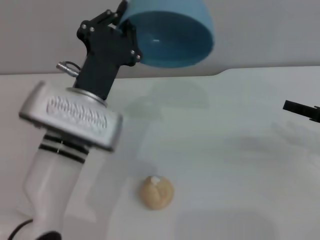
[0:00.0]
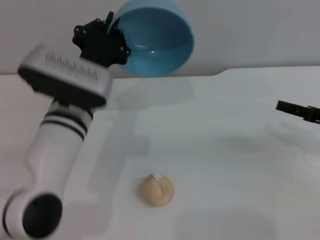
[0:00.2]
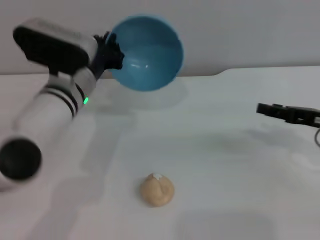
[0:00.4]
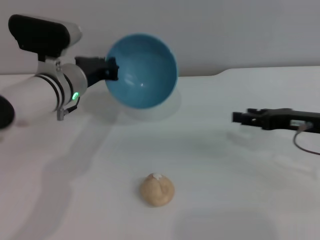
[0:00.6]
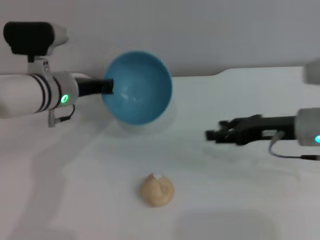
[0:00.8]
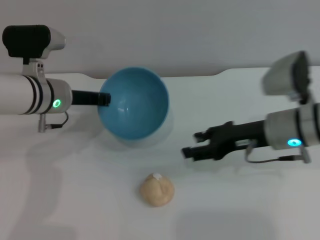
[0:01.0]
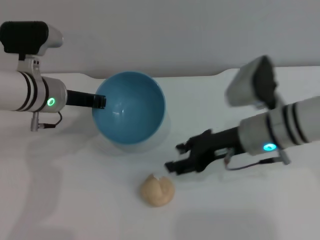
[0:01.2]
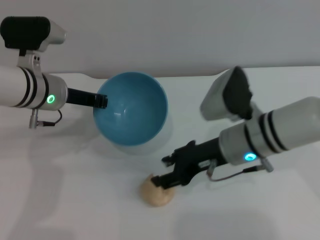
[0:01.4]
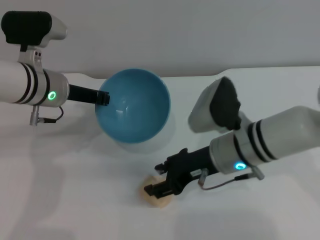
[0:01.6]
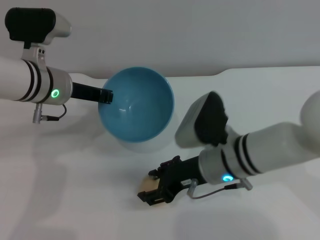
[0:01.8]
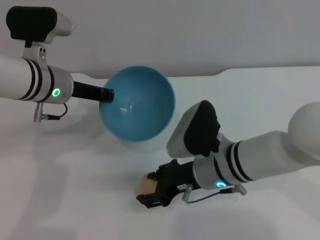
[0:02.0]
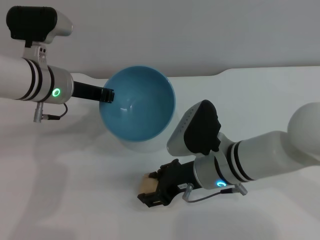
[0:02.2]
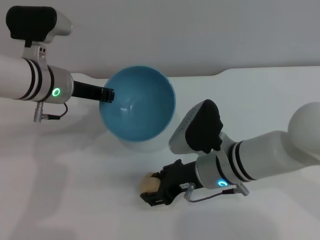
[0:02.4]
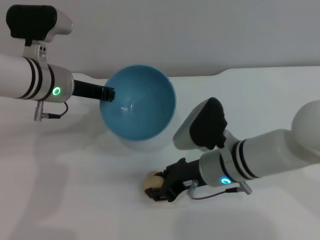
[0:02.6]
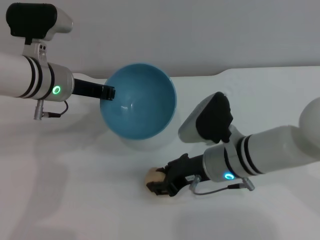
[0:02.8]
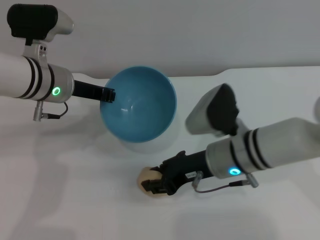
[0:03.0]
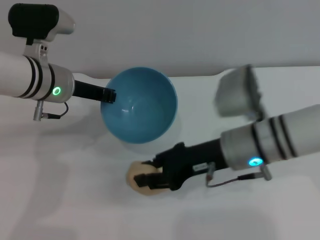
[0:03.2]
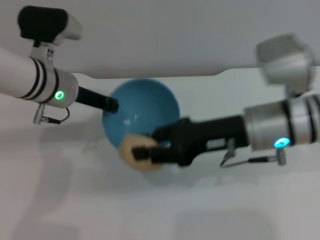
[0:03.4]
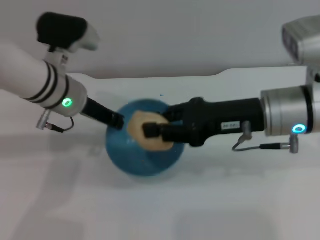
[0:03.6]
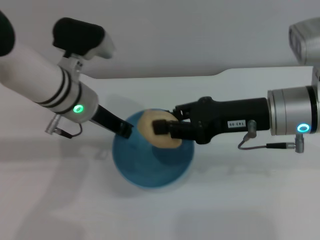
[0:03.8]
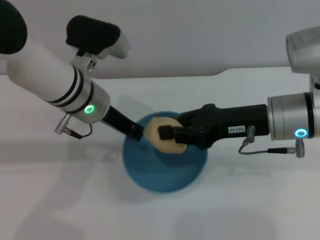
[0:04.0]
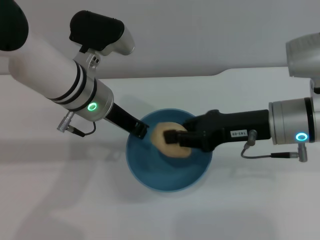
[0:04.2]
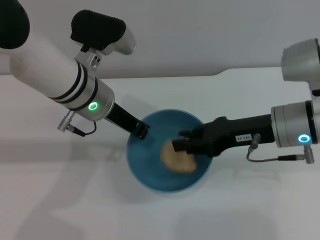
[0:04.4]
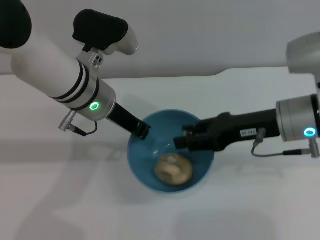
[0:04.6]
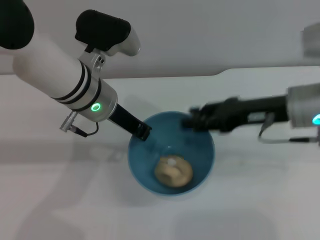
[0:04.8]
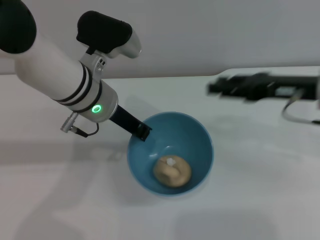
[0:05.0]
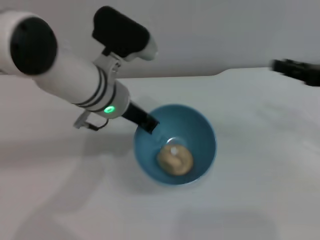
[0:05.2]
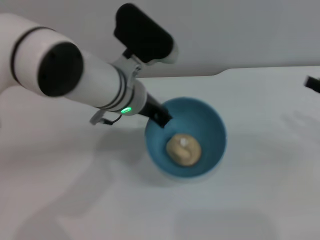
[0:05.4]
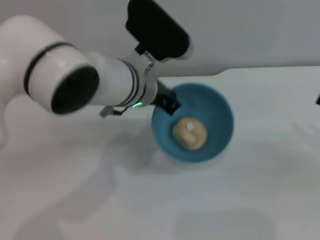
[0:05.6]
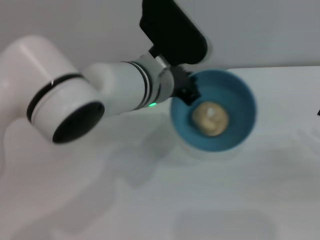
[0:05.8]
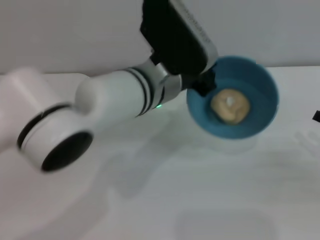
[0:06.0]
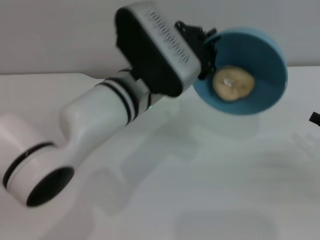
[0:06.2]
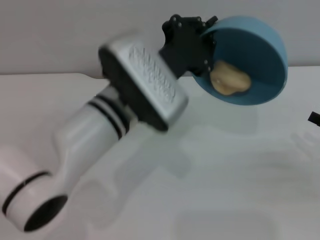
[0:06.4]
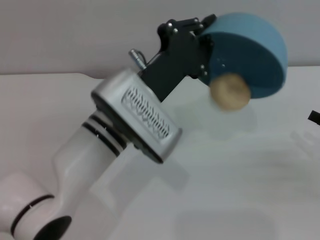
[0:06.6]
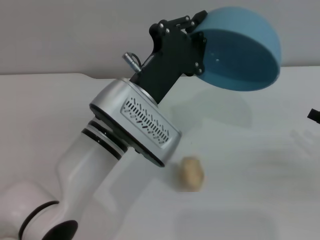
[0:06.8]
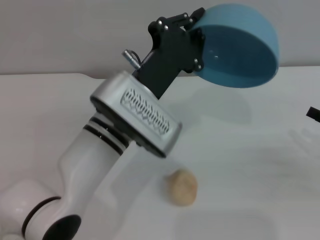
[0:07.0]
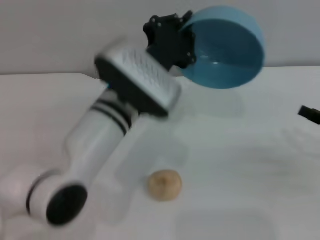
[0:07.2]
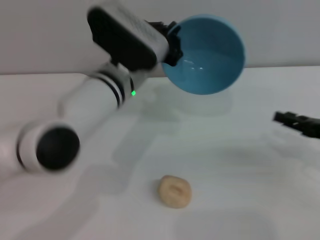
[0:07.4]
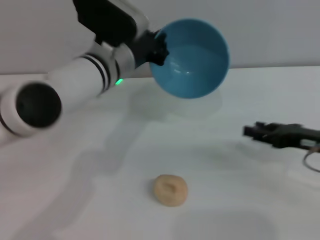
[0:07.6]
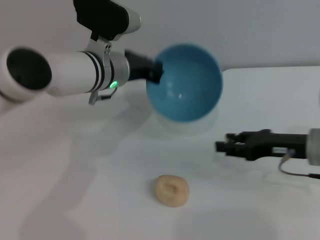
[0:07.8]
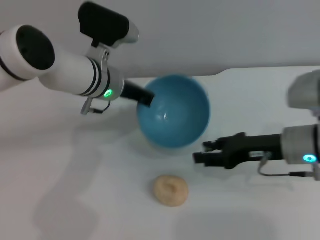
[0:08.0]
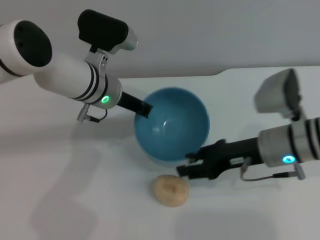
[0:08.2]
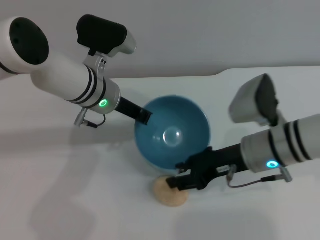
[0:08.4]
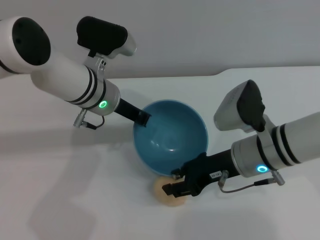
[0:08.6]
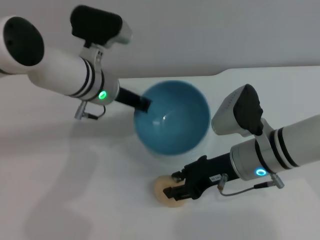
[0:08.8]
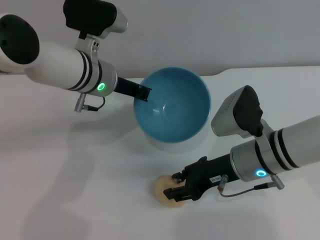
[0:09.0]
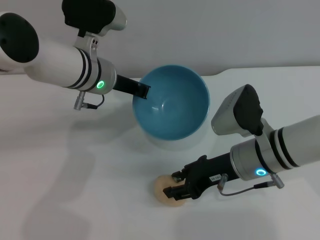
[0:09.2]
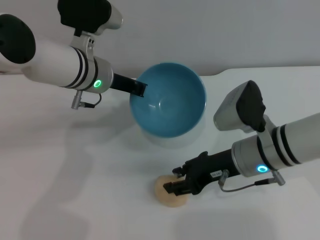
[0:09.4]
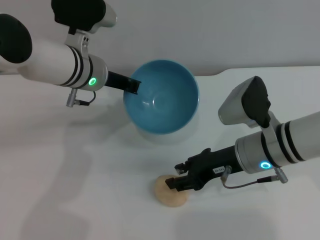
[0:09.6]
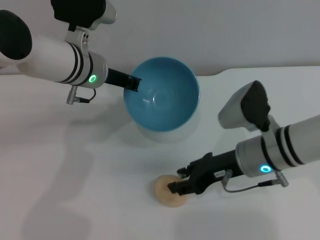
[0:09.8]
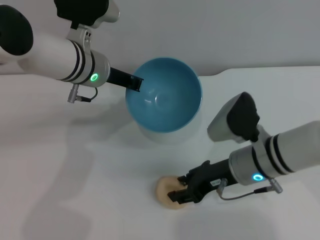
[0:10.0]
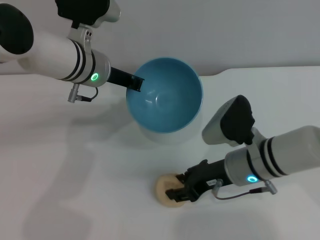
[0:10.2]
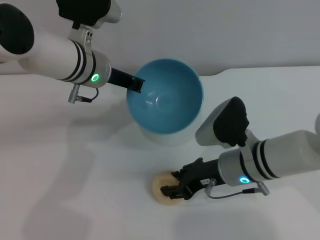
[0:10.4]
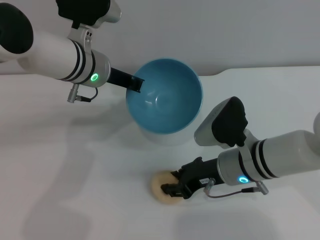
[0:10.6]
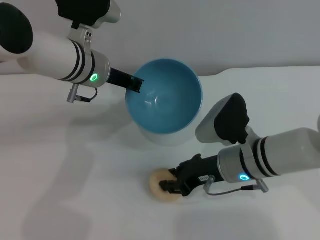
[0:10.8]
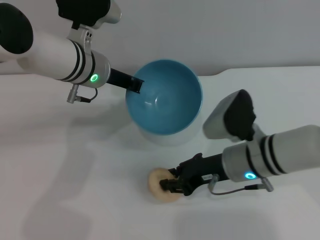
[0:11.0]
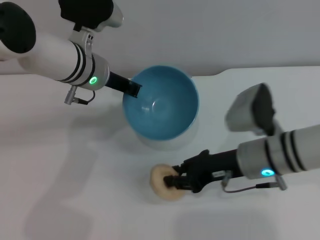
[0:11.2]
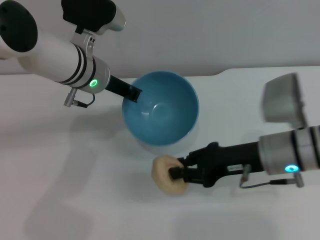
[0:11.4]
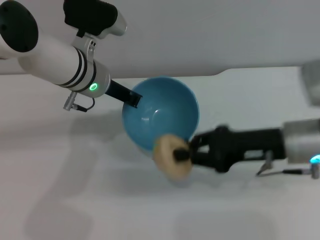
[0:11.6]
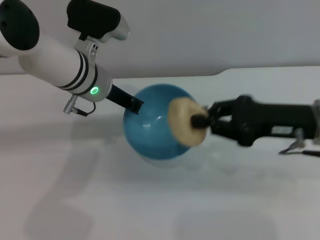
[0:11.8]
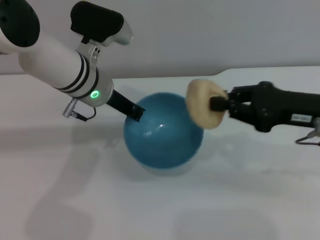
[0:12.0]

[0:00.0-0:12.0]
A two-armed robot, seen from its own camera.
Task of the whole recording: put the egg yolk pastry into the blue bowl and pour it out repeatedly.
Step, 0:01.2 to 0:03.0: Pick up the egg yolk pastry with the right gripper.
Step, 0:03.2 to 0:05.0: Place the egg yolk pastry into the bowl.
Step, 0:05.2 to 0:07.0: Pour the egg yolk pastry out of bowl.
Step, 0:07.2 to 0:11.0: Pick up the egg yolk pastry with the right gripper.
0:00.0 to 0:01.6: The left gripper moves forward and to the left, some 15 cm, while the right gripper heads to the left, covering approximately 25 cm.
0:01.6 to 0:03.0: The right gripper closes its fingers.
0:03.0 to 0:04.4: The right gripper is displaced to the right and upward by roughly 10 cm. Meanwhile the left gripper shifts roughly 5 cm to the right.
0:04.4 to 0:06.0: The right gripper moves to the right, approximately 20 cm, and opens up. Meanwhile the left gripper is displaced to the right by approximately 10 cm.
0:06.0 to 0:07.6: The left gripper travels forward and to the left by approximately 10 cm. Meanwhile the right gripper travels to the left by some 10 cm.
0:07.6 to 0:09.0: The right gripper moves to the left, approximately 15 cm.
0:09.0 to 0:10.4: The grippers stay close to where they were, moving slightly.
0:10.4 to 0:12.0: The right gripper shifts some 15 cm to the right and upward, and closes its fingers.

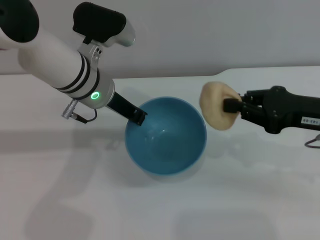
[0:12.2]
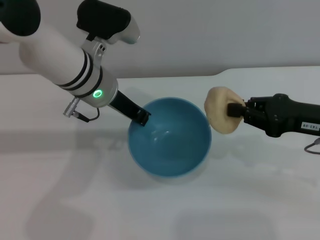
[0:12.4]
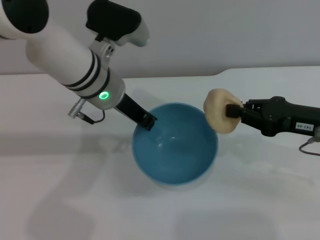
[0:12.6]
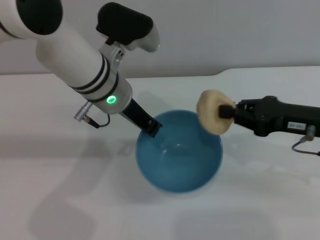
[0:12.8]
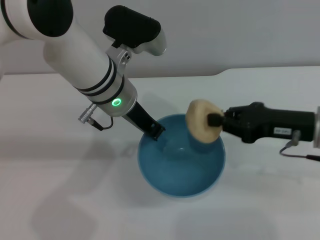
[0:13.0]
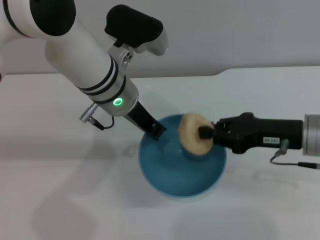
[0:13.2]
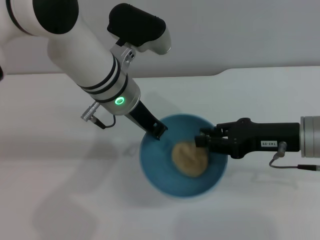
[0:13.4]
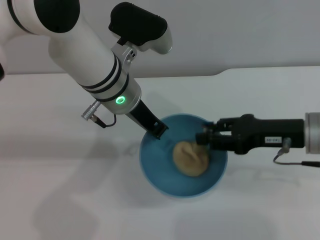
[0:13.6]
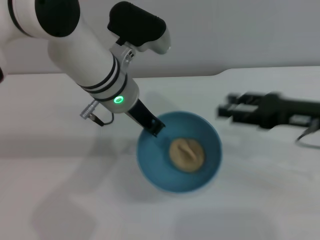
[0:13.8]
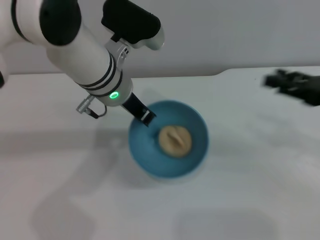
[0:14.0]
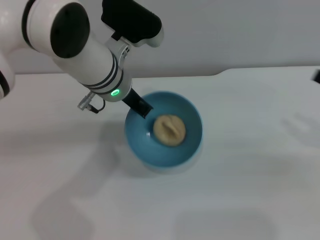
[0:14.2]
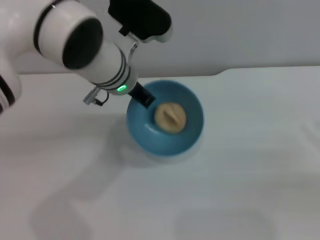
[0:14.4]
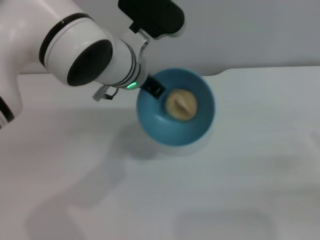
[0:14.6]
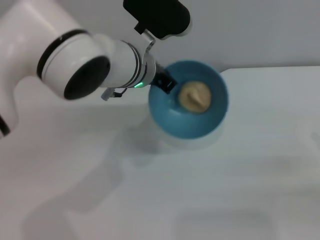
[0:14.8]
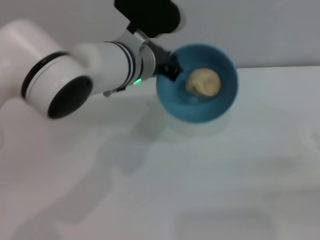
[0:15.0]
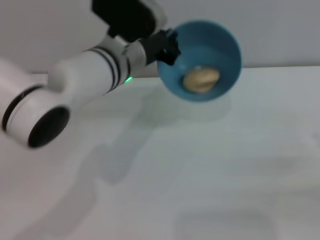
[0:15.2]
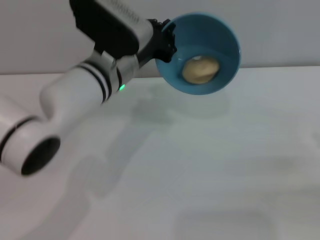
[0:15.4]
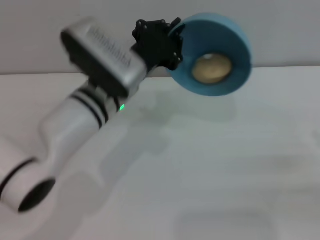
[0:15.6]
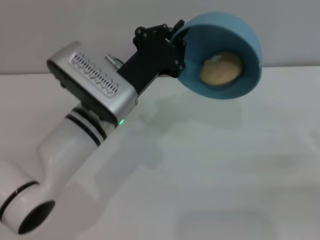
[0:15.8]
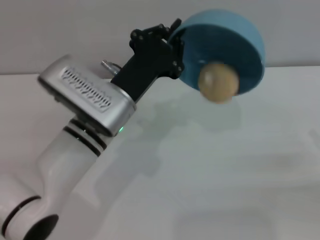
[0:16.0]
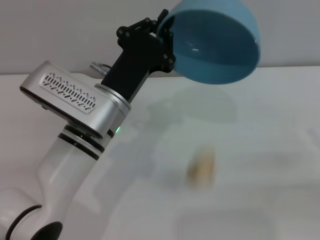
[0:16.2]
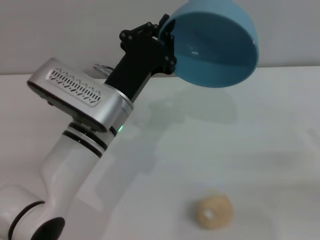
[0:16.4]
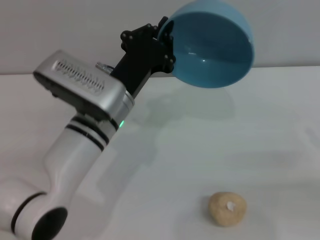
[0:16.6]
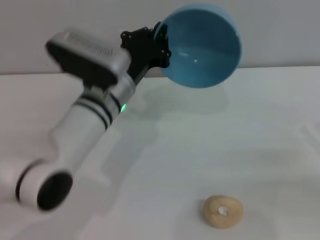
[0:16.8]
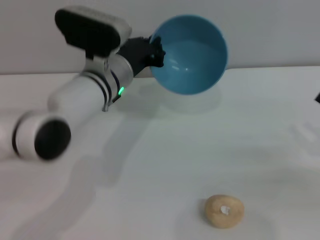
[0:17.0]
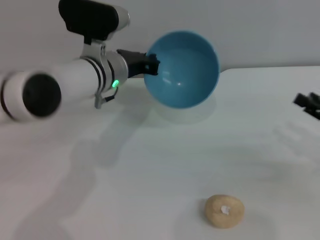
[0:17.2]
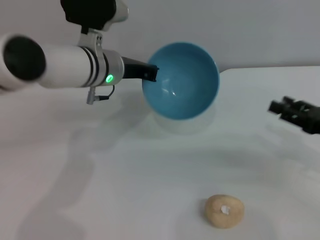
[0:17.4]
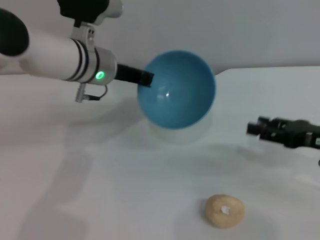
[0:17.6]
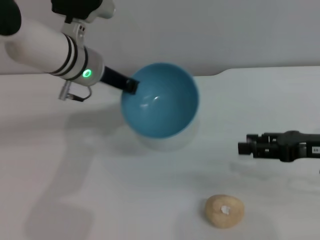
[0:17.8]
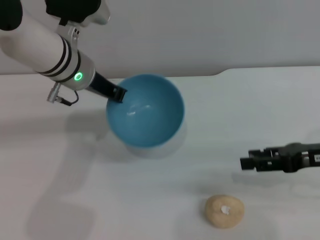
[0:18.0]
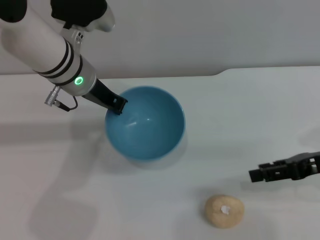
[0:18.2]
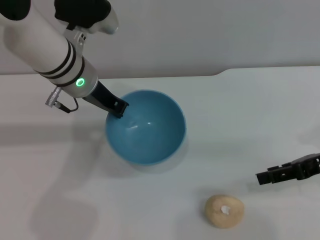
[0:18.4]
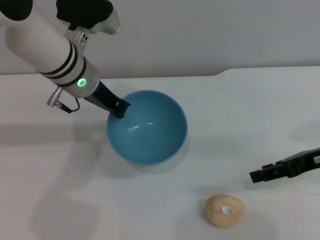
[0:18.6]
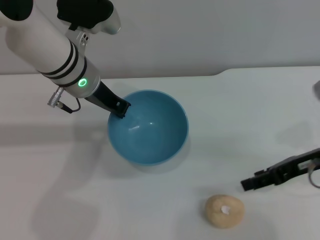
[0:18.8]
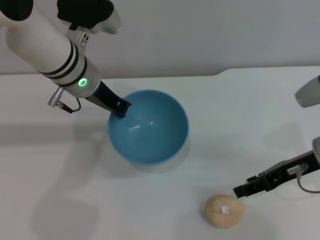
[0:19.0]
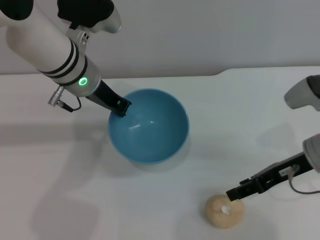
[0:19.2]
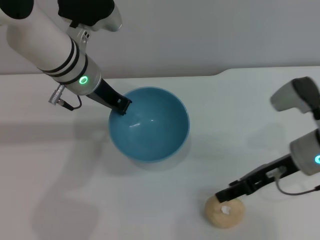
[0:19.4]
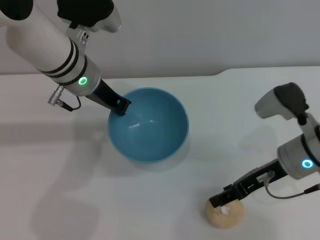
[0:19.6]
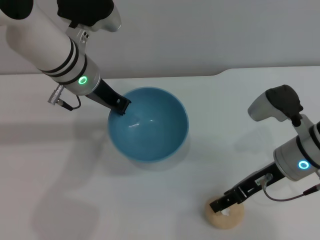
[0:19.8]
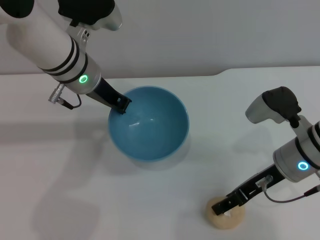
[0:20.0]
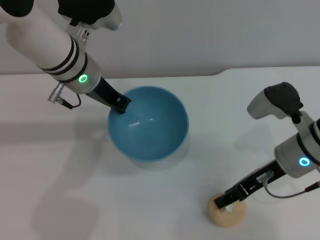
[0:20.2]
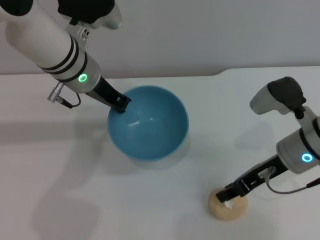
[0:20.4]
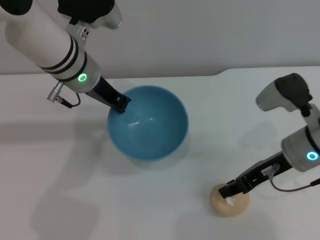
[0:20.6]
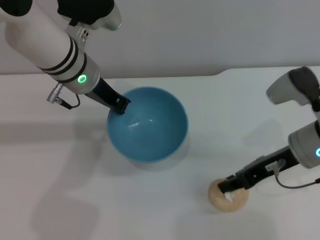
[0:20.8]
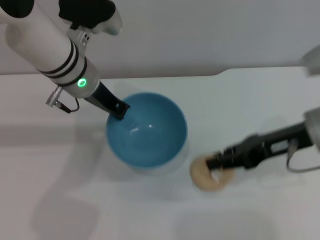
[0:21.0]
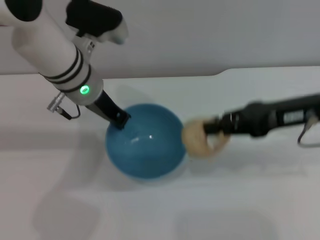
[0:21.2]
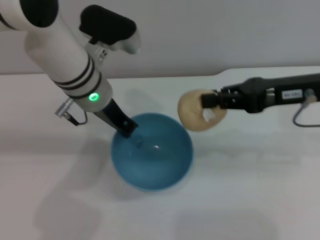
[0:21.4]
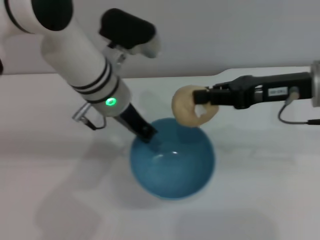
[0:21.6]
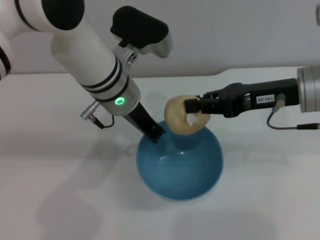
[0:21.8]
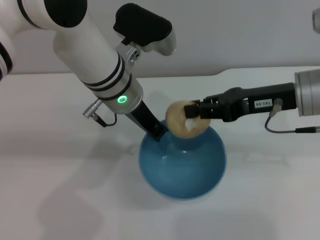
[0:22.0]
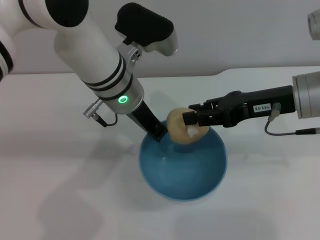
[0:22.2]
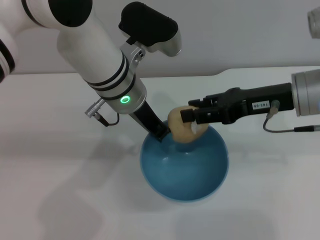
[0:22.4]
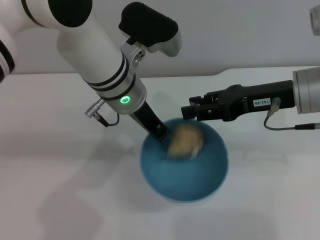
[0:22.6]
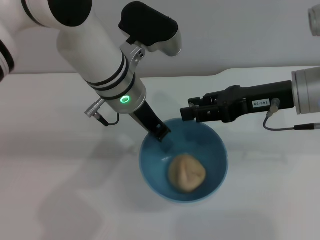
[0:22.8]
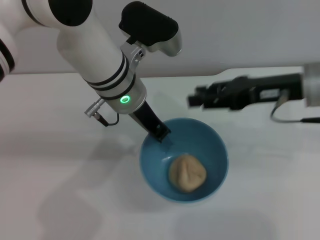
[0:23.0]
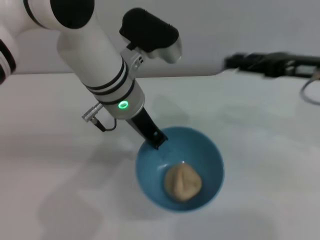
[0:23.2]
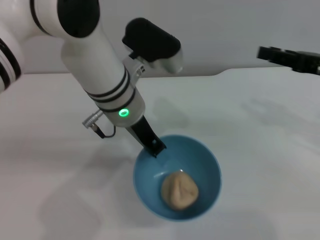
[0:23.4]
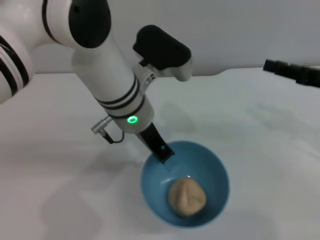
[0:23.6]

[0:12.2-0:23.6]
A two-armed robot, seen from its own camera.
Task of the whole recording: put the egg yolk pastry into the blue bowl and pour it out repeatedly.
Step, 0:12.2 to 0:13.6: Place the egg yolk pastry into the bowl.
Step, 0:13.8 to 0:16.2: Pour the egg yolk pastry out of bowl.
Step, 0:16.4 to 0:20.8: Pick up the egg yolk pastry with the right gripper.
Step, 0:21.2 to 0:23.0: Place the egg yolk pastry into the bowl.
0:12.2 to 0:13.6: The left gripper changes place by roughly 5 cm.
0:13.6 to 0:15.0: The right gripper is displaced to the right and backward by some 20 cm, and opens its fingers.
0:15.0 to 0:16.4: The left gripper shifts roughly 10 cm backward and downward.
0:16.4 to 0:17.8: The left gripper goes some 10 cm forward and upward; the right gripper travels to the left and forward by approximately 10 cm.
0:17.8 to 0:19.4: The right gripper is displaced to the left by some 5 cm.
0:19.4 to 0:20.8: The right gripper closes.
0:20.8 to 0:22.2: The right gripper shifts approximately 5 cm upward; the left gripper heads to the right, covering about 5 cm.
0:22.2 to 0:23.6: The right gripper moves to the right, approximately 10 cm, and opens its fingers.
